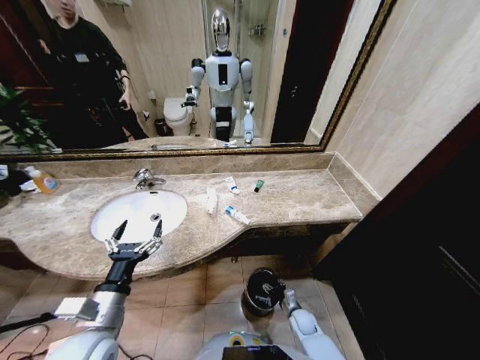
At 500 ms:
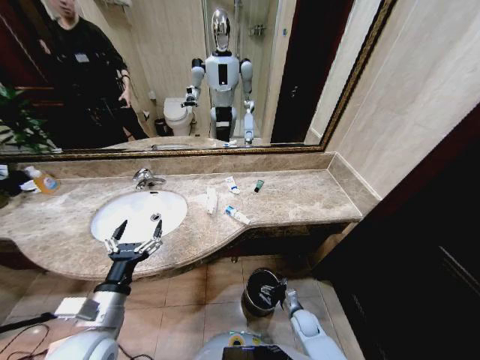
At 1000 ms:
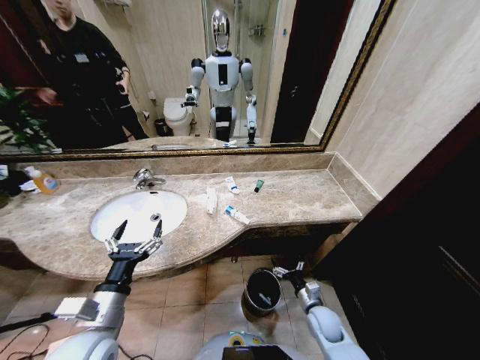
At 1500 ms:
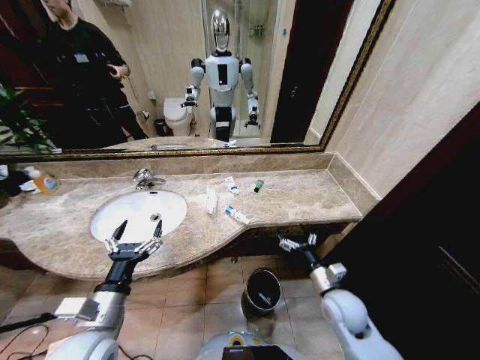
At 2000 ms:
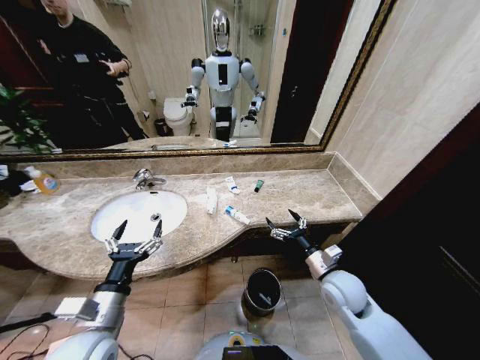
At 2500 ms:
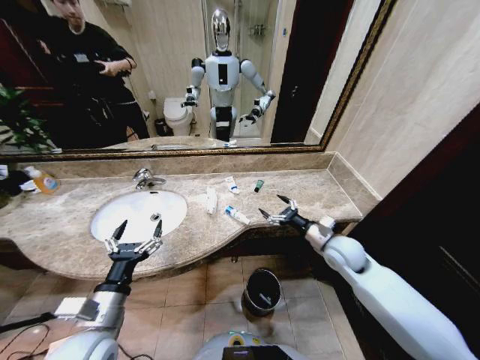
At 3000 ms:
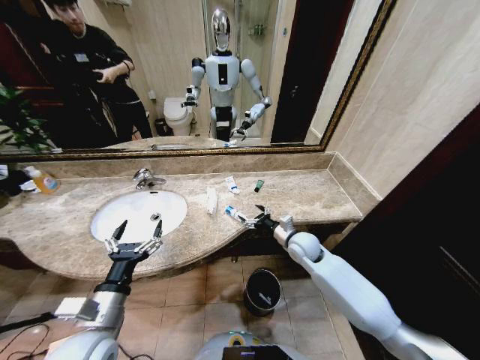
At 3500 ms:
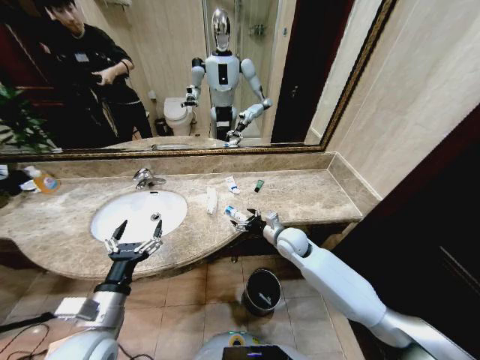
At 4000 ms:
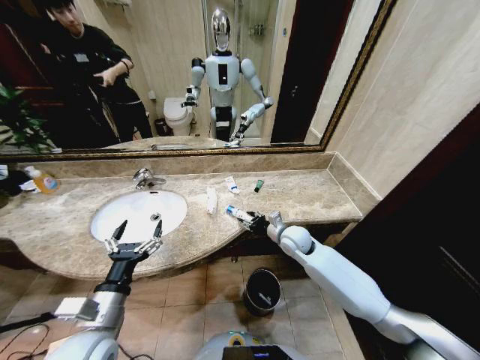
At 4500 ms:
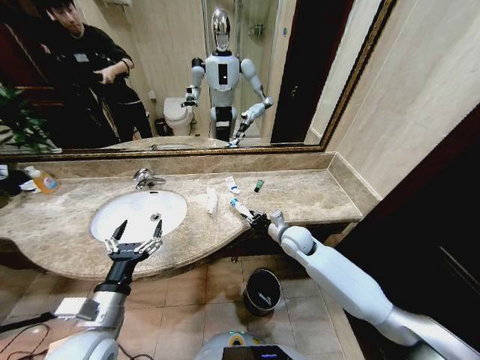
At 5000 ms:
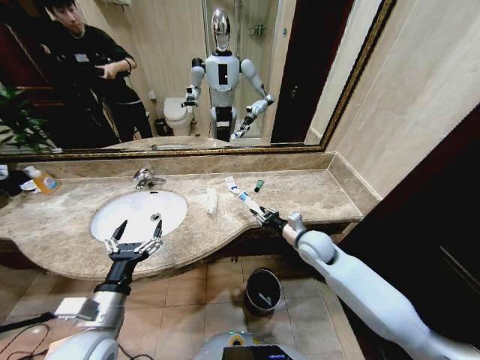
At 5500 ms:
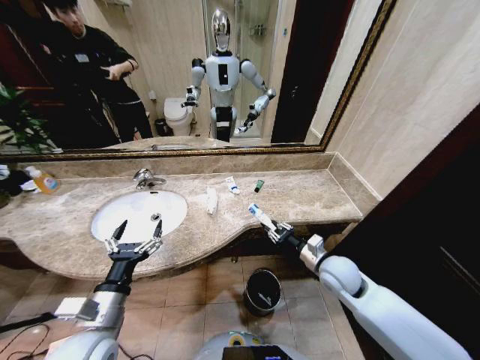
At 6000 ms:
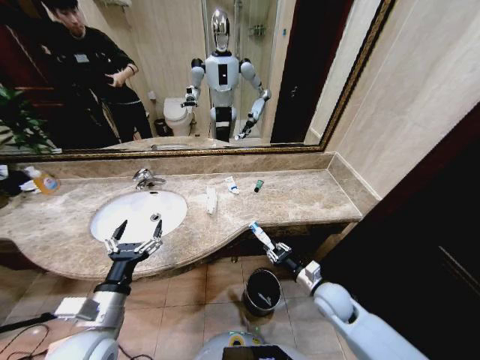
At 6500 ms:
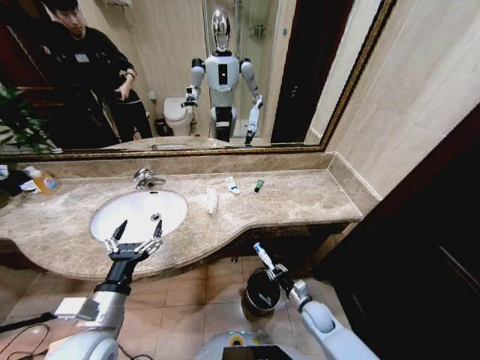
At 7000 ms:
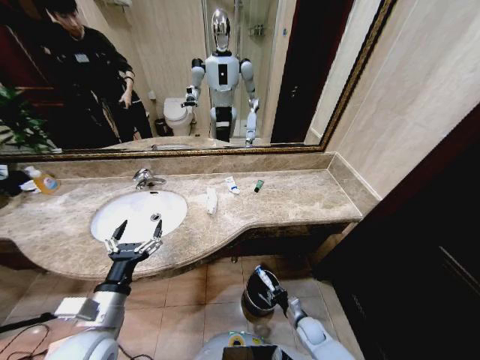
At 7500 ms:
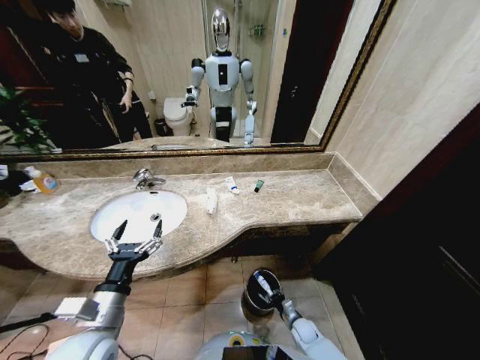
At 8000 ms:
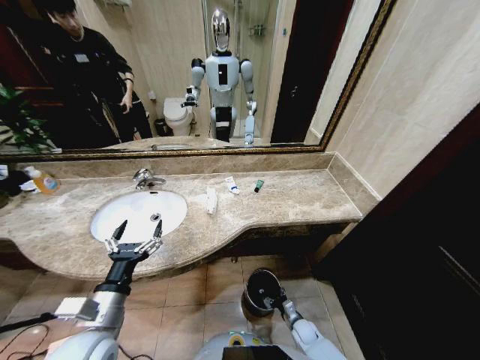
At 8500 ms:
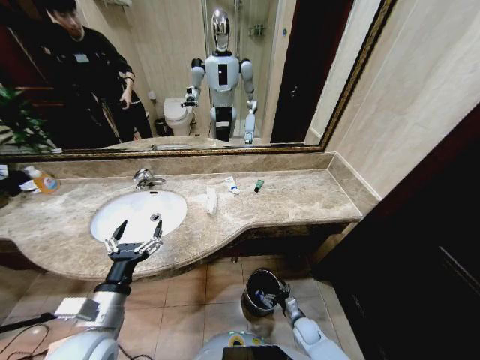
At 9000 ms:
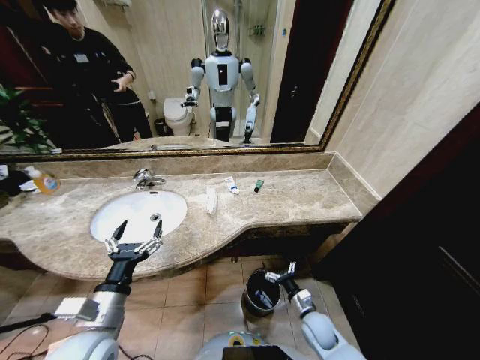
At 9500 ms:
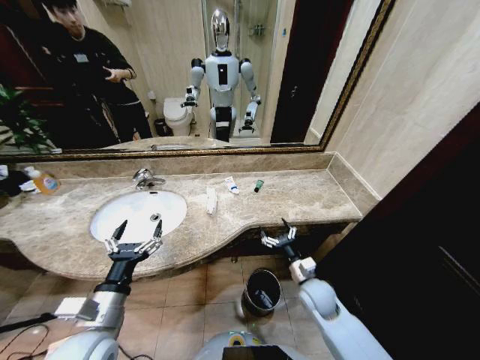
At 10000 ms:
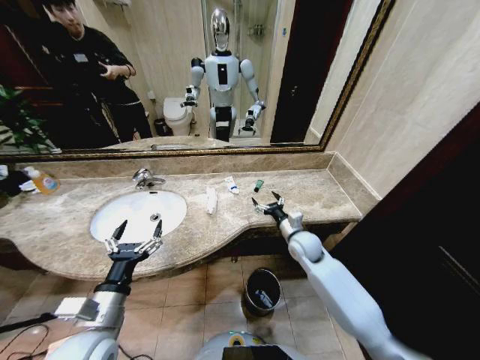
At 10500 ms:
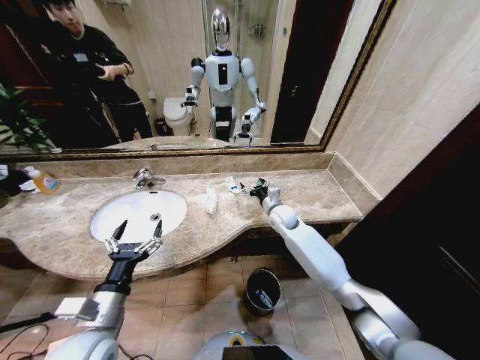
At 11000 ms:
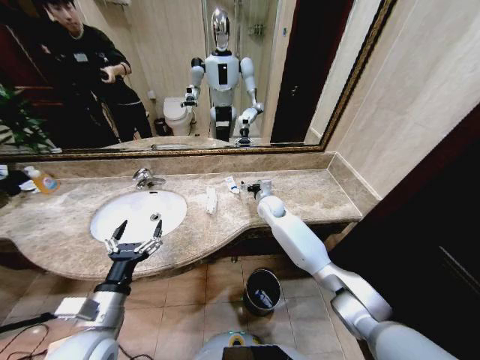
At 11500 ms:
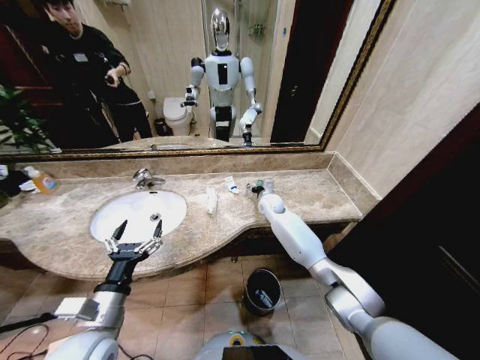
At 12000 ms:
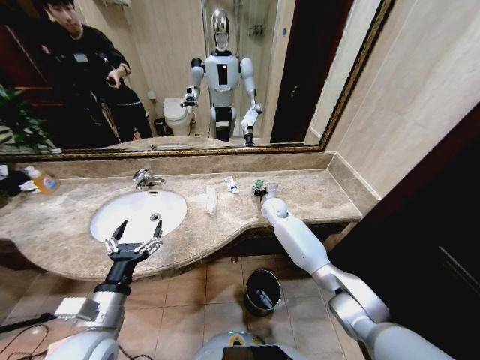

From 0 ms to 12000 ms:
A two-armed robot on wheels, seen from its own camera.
Task of the whole recording: Pick up the trash from the sink and place it in the trash bin.
From 0 ms to 2000 ms: The right gripper is displaced upward by approximately 30 cm, and opens up.
From 2000 ms to 4000 ms: The right gripper heads forward and to the left, covering about 15 cm, and closes up.
From 4000 ms to 6000 ms: The right gripper heads backward, downward and to the right, covering about 20 cm.
From 6000 ms to 8000 ms: The right gripper travels downward by some 25 cm, and opens its fingers.
From 8000 ms to 10000 ms: The right gripper heads upward and forward, covering roughly 40 cm.
From 10000 ms to 12000 ms: The right gripper travels forward and to the left by some 15 cm, and closes up.

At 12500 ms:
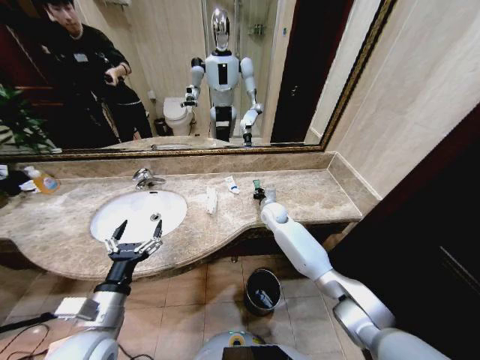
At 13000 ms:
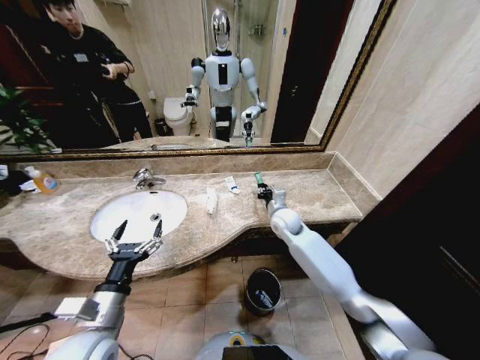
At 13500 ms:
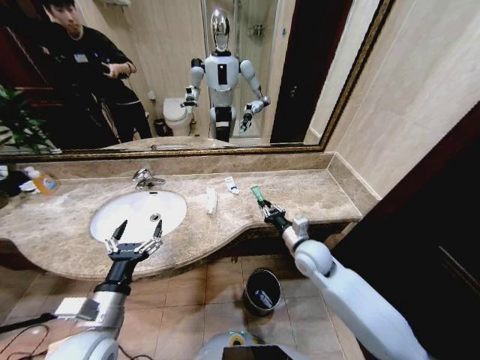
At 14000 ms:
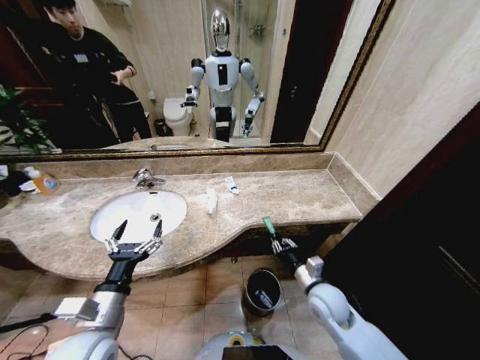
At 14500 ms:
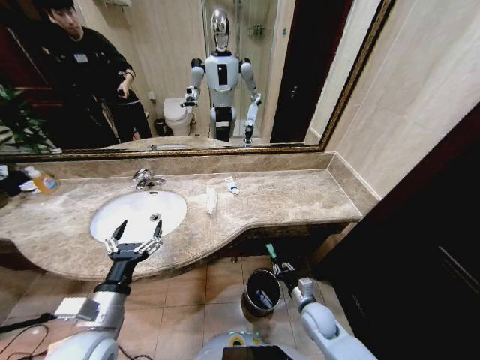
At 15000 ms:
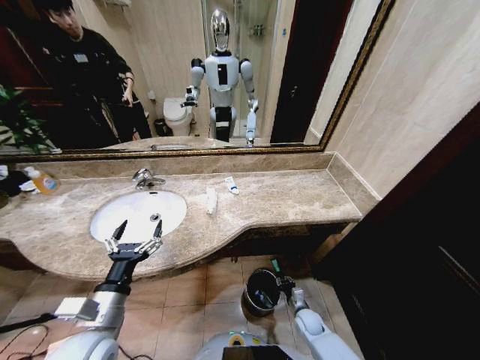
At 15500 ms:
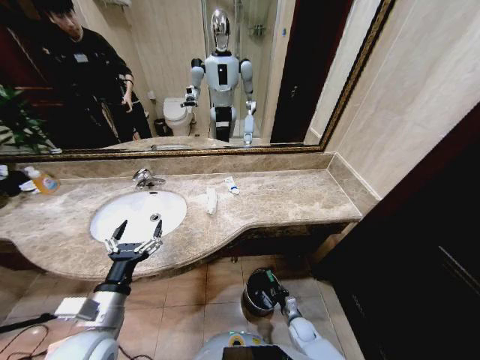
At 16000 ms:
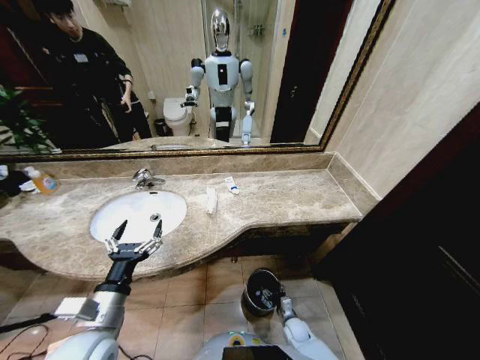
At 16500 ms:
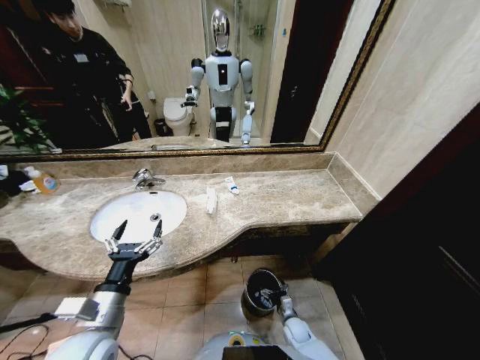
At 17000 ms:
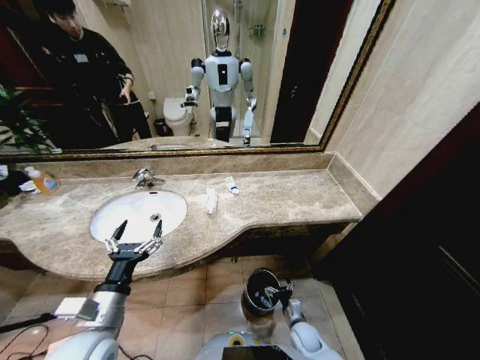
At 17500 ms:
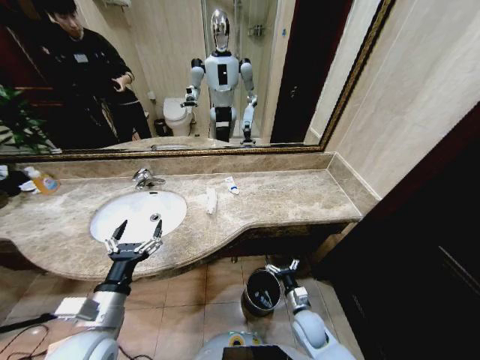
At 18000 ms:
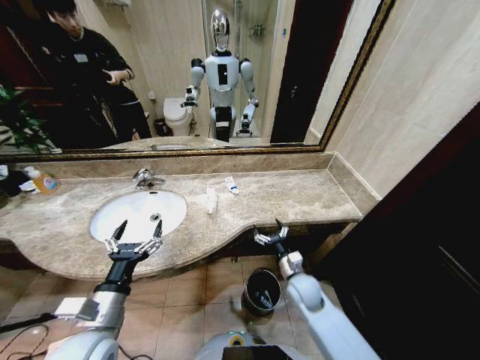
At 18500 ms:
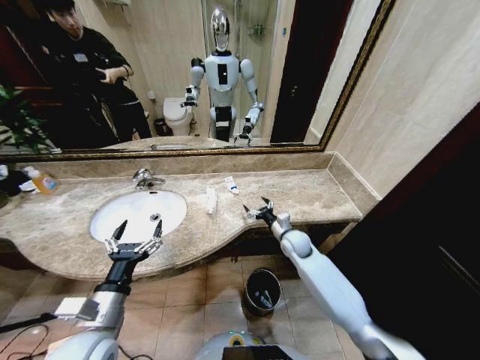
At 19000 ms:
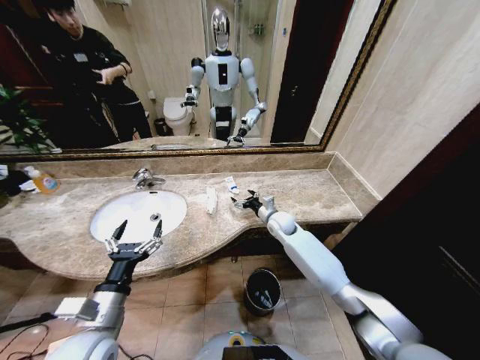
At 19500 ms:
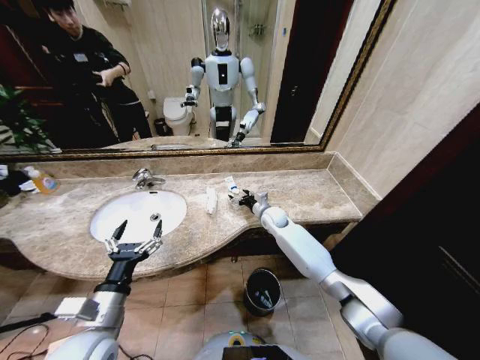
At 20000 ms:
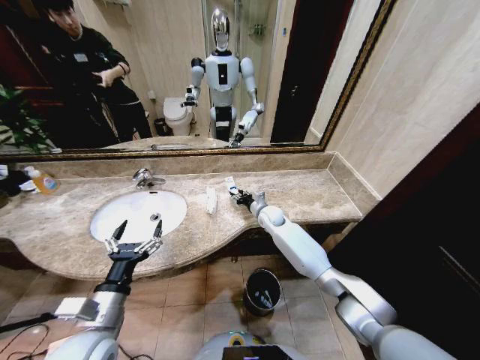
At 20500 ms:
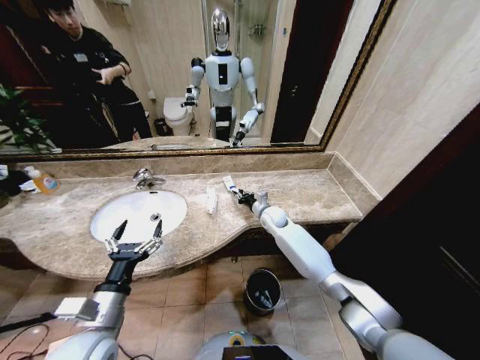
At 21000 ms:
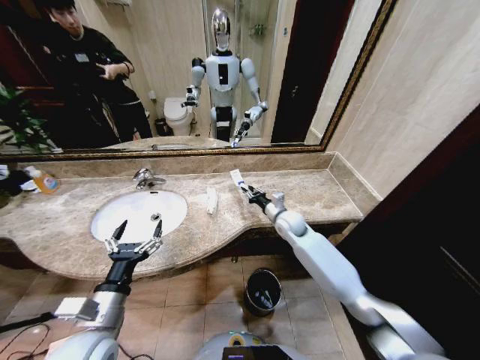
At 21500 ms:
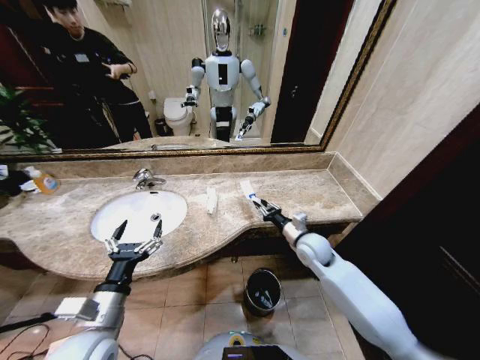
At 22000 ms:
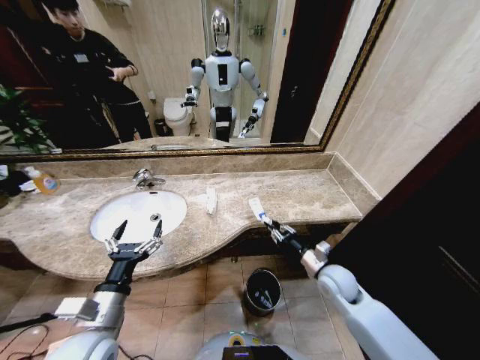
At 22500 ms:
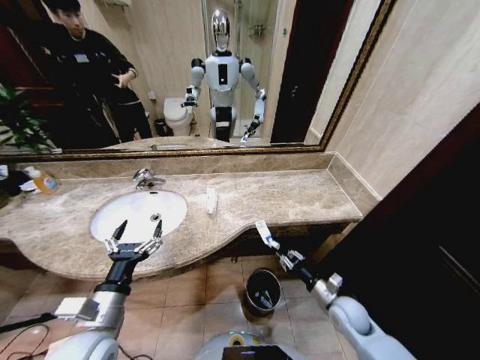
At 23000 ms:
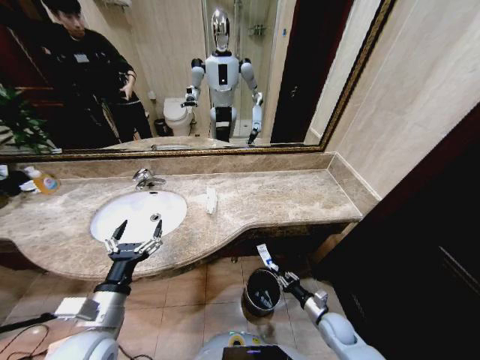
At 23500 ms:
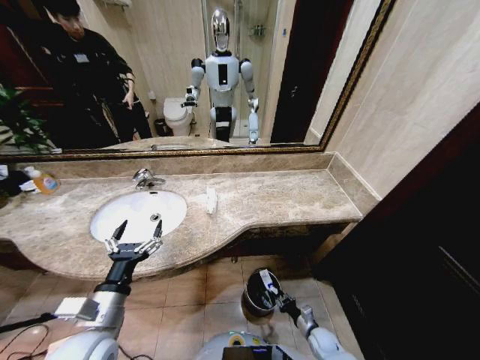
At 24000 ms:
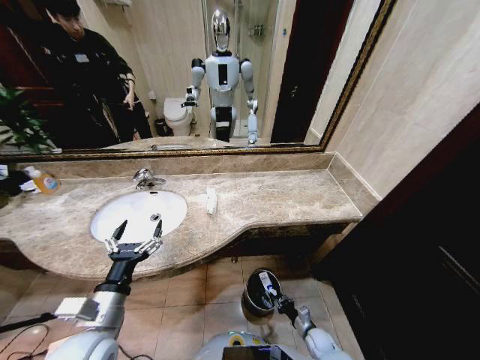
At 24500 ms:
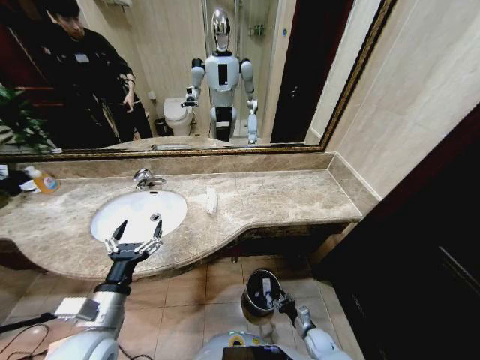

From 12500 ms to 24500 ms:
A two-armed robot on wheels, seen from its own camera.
Task of the whole recording: Pick up the trash from the sink and place it in the trash bin.
From 12500 ms to 14500 ms: The right gripper goes some 35 cm backward and downward.
From 14500 ms to 16500 ms: The right gripper is displaced downward by roughly 15 cm, and opens its fingers.
From 16500 ms to 18500 ms: The right gripper heads upward and forward, covering approximately 35 cm.
From 18500 ms to 20500 ms: The right gripper is displaced forward and to the left by roughly 10 cm, and closes.
From 20500 ms to 22500 ms: The right gripper goes about 35 cm backward and to the right.
From 22500 ms to 24500 ms: The right gripper heads downward, covering approximately 25 cm.

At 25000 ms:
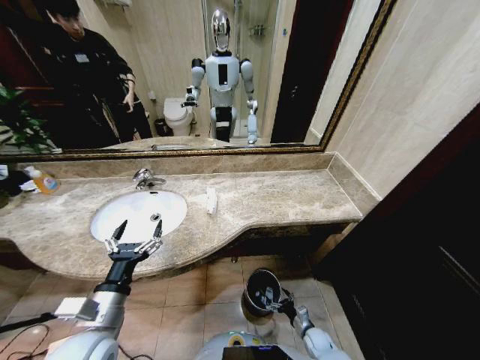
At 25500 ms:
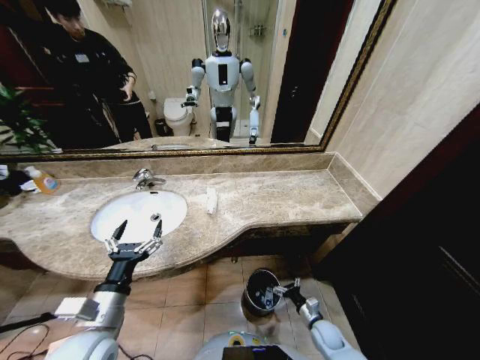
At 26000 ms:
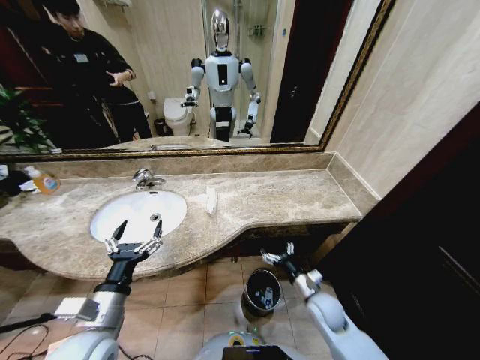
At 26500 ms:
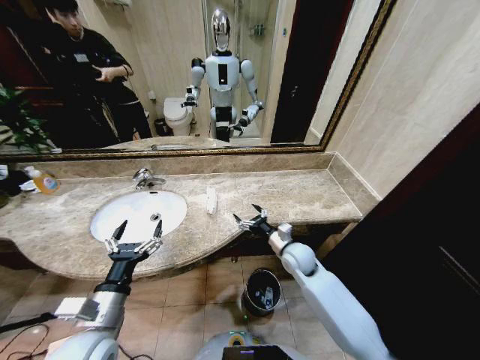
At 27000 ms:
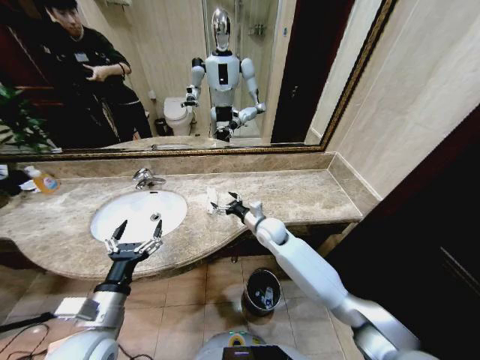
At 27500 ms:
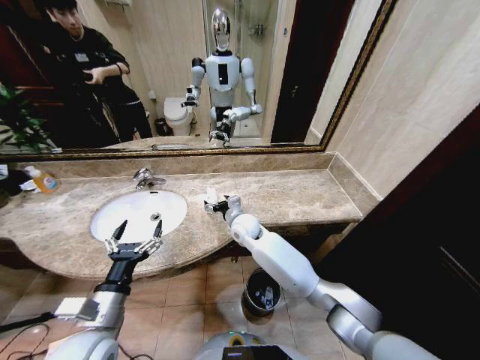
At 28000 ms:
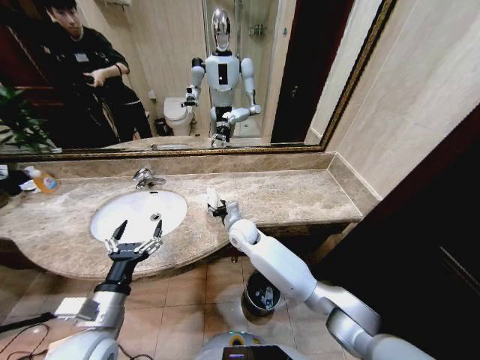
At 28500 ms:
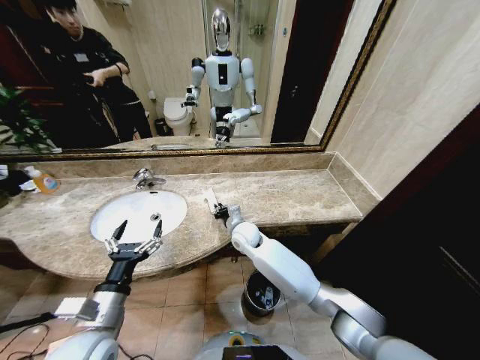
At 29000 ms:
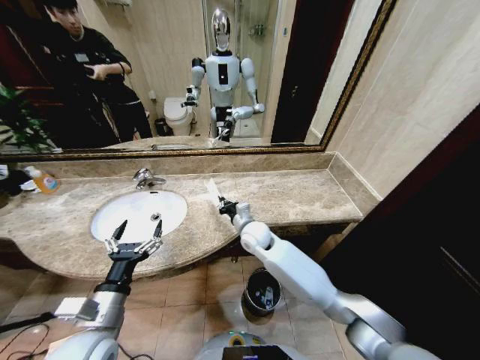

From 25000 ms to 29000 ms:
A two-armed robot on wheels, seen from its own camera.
Task of the whole recording: Pick up the trash from the sink and place it in the trash bin.
From 25000 ms to 27000 ms: The right gripper is displaced upward, forward and to the left by about 50 cm.
From 27000 ms to 29000 ms: The right gripper closes up.
